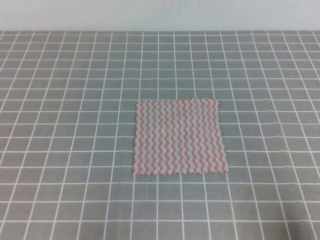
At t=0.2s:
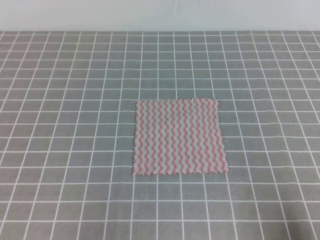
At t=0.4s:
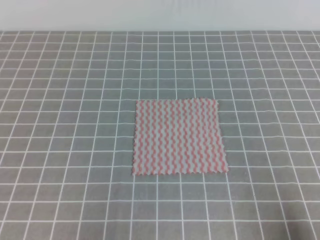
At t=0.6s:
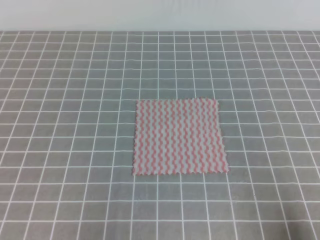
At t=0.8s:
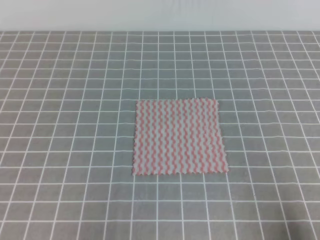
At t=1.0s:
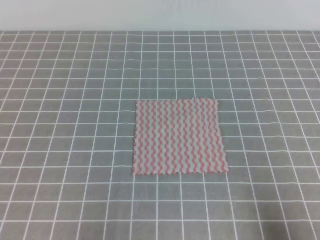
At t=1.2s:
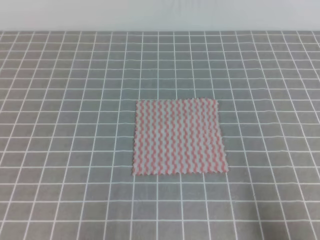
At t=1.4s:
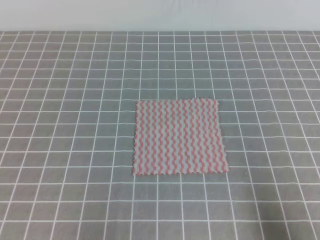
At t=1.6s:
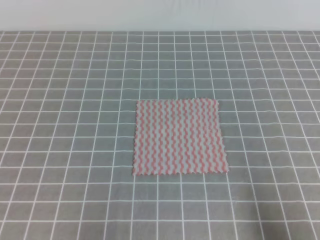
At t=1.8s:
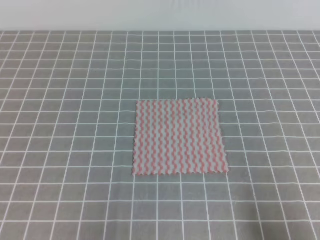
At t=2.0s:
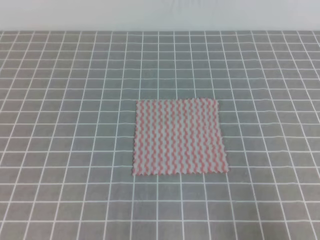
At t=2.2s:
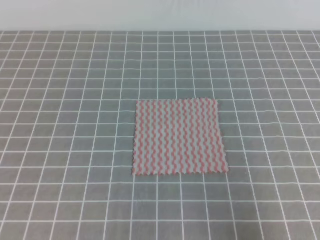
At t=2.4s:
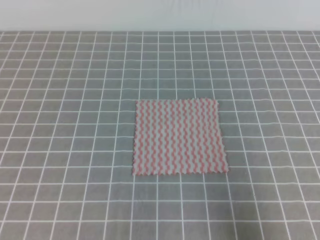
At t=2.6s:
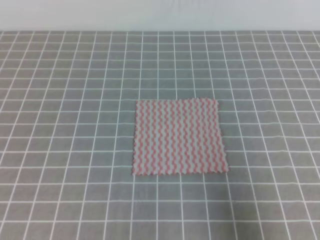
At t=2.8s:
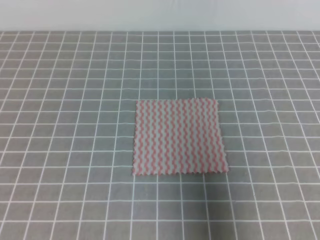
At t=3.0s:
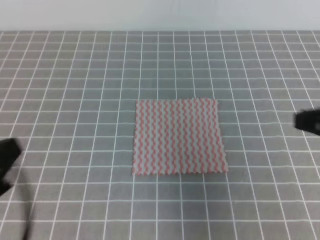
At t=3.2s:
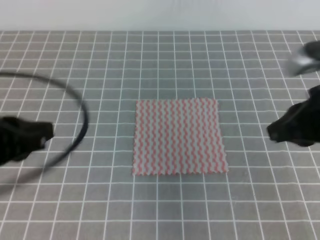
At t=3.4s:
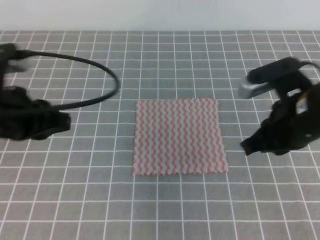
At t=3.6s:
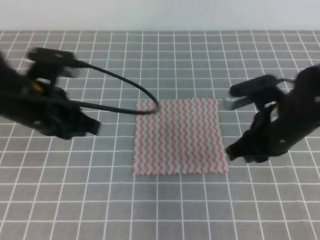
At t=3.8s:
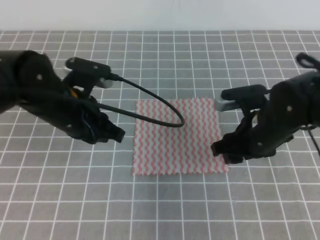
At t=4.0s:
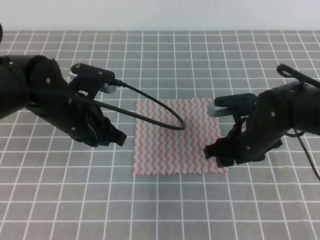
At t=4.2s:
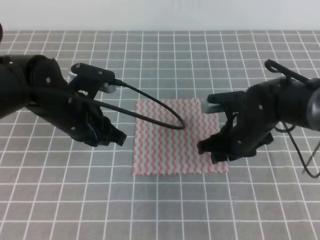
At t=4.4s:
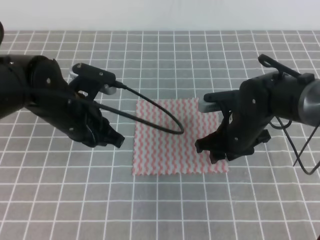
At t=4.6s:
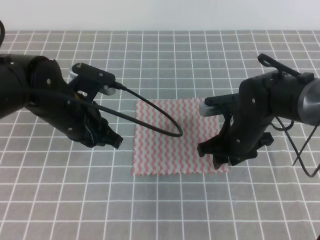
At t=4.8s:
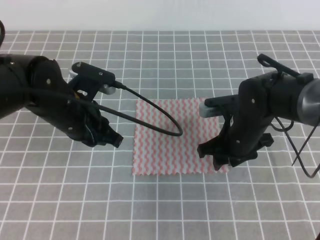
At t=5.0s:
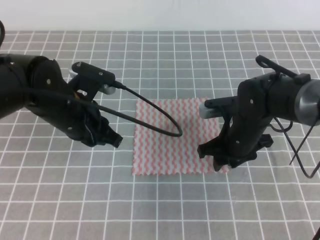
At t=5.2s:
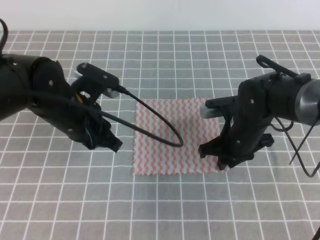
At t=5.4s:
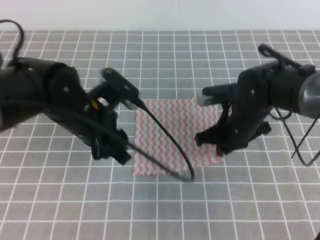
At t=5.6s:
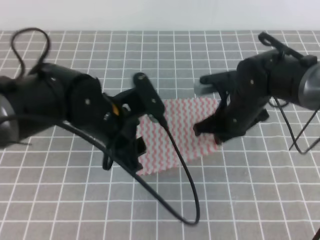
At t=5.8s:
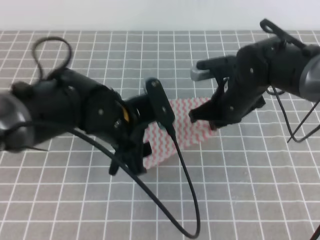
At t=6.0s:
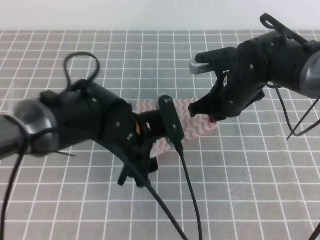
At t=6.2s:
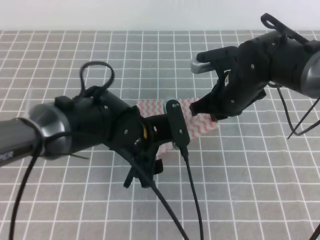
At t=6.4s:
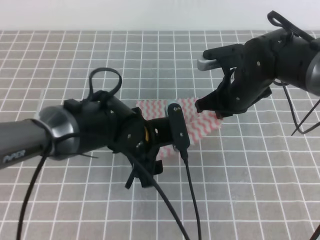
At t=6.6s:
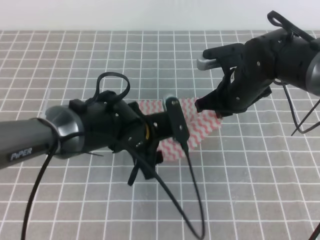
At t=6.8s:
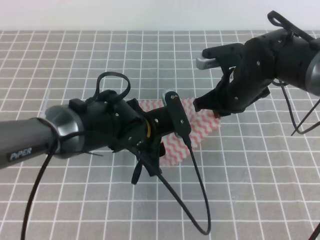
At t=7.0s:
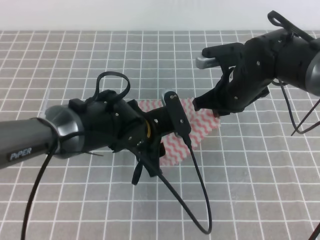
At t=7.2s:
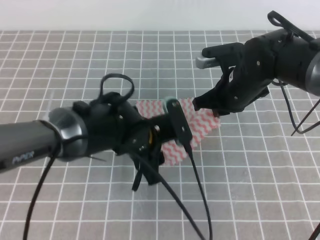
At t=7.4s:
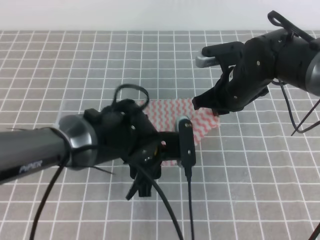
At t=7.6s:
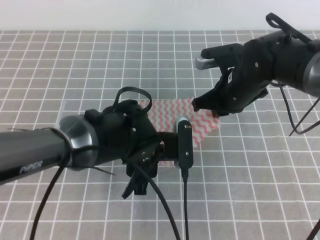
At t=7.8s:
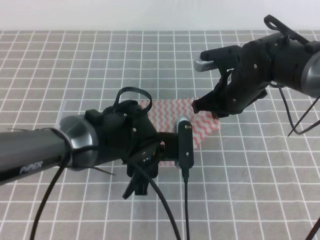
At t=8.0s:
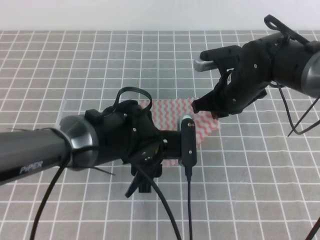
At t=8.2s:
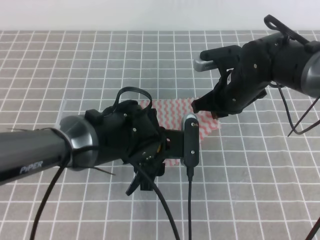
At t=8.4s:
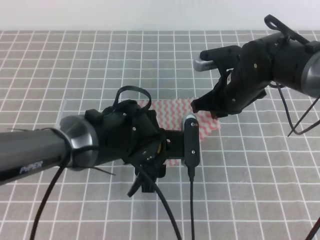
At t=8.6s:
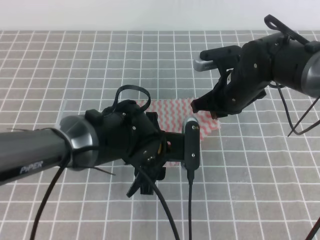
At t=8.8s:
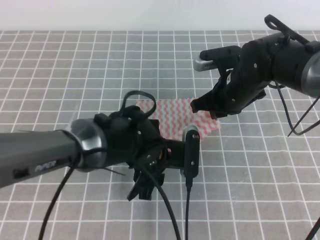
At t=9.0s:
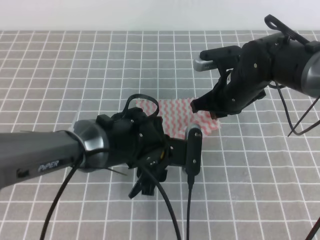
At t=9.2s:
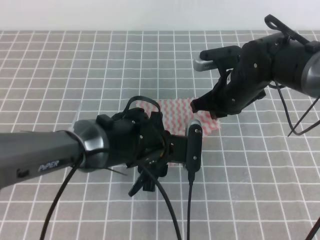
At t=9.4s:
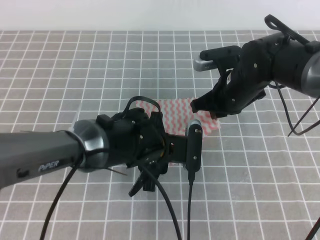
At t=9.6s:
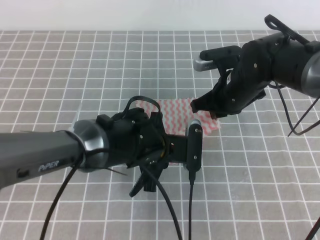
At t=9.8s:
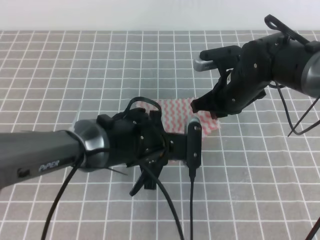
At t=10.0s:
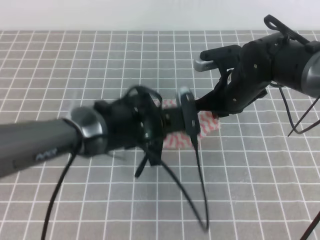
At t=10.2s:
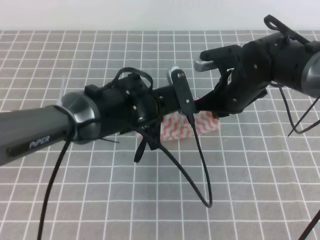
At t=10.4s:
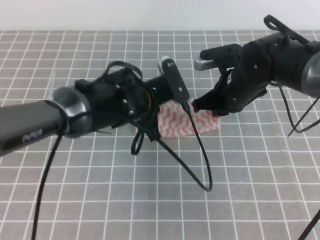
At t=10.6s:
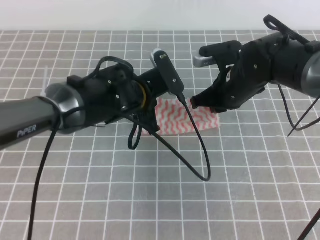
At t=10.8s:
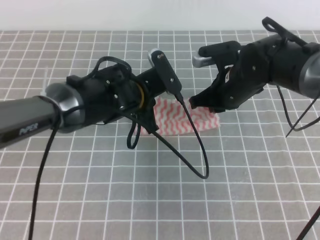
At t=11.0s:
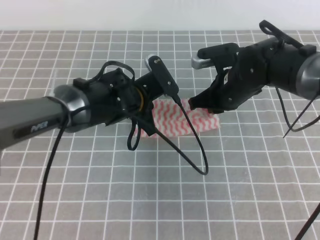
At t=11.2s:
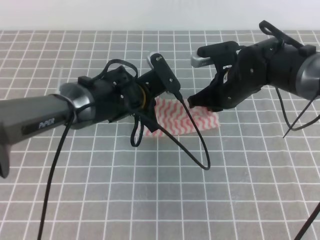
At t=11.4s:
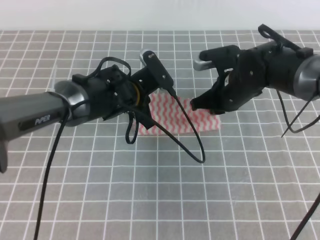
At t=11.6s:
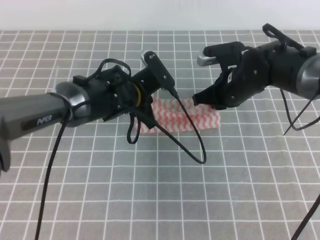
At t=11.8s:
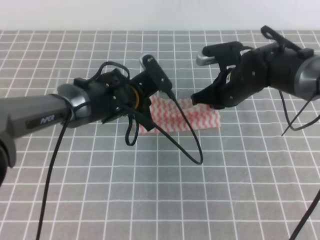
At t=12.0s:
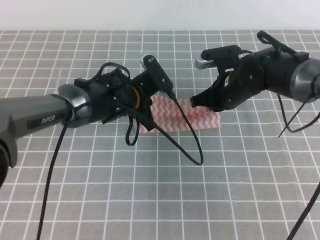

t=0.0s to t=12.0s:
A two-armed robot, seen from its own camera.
t=1.6s to t=3.0s: The left gripper is displaced upward by approximately 15 cm; the right gripper moves upward and forward, roughly 20 cm.
t=3.0s to t=4.4s: The right gripper travels downward, forward and to the left by some 25 cm, and opens; the left gripper is displaced forward and to the right by about 25 cm.
t=4.4s to t=6.0s: The left gripper moves to the right, some 10 cm, and opens up; the right gripper shifts roughly 5 cm upward, and closes up.
t=7.6s to t=9.0s: The grippers make only small movements.
t=9.0s to t=10.4s: The left gripper goes about 5 cm forward, and closes.
t=10.4s to t=12.0s: The left gripper moves forward, roughly 5 cm.

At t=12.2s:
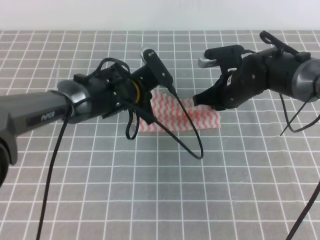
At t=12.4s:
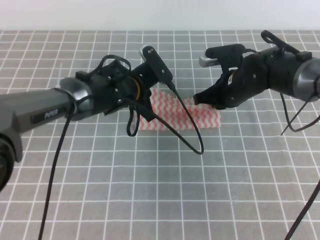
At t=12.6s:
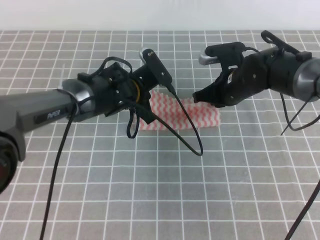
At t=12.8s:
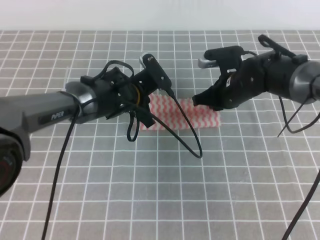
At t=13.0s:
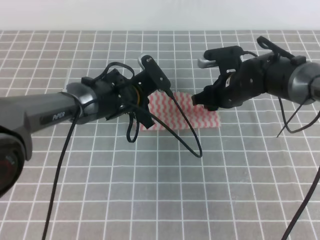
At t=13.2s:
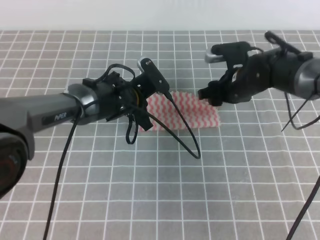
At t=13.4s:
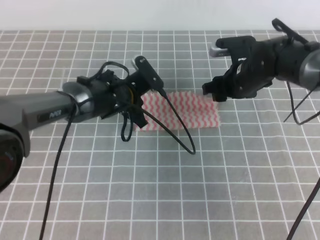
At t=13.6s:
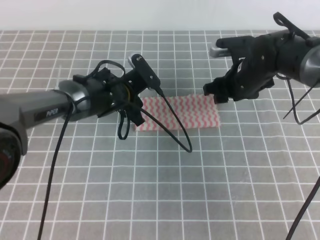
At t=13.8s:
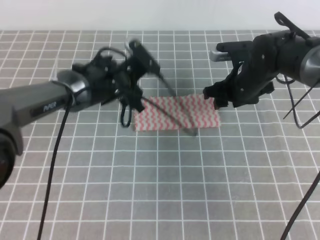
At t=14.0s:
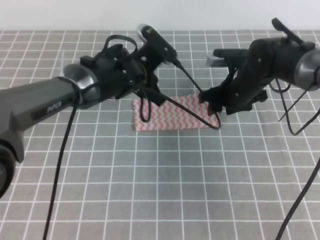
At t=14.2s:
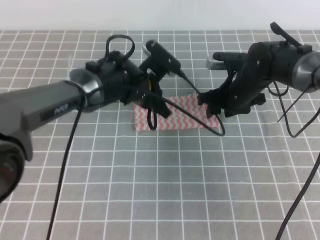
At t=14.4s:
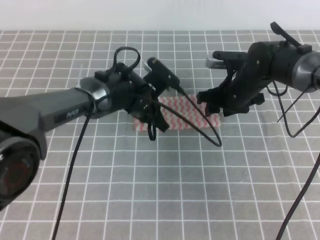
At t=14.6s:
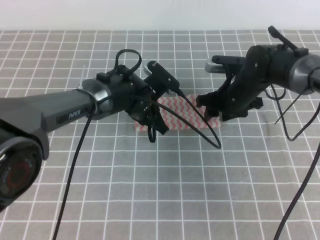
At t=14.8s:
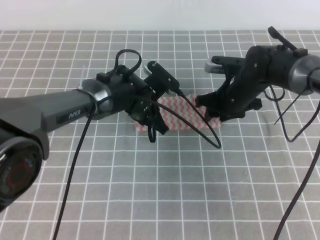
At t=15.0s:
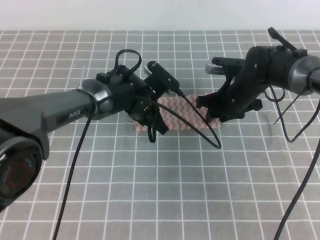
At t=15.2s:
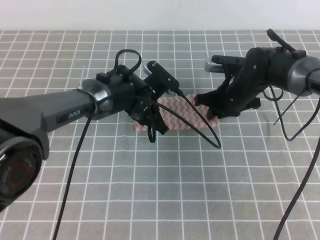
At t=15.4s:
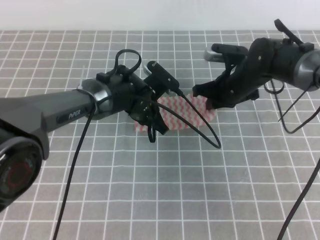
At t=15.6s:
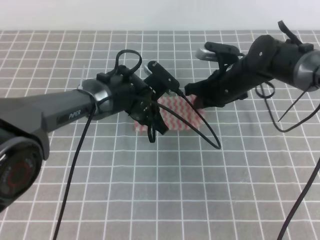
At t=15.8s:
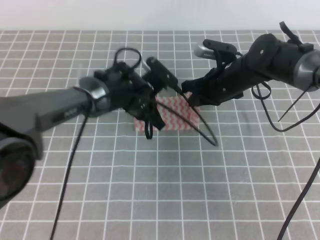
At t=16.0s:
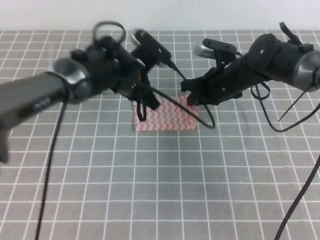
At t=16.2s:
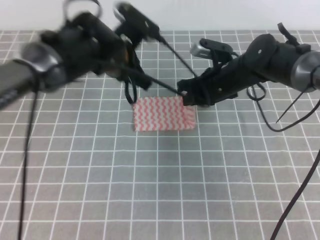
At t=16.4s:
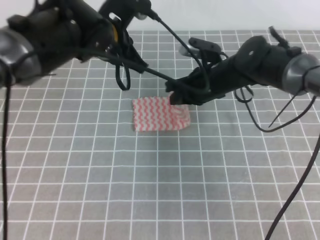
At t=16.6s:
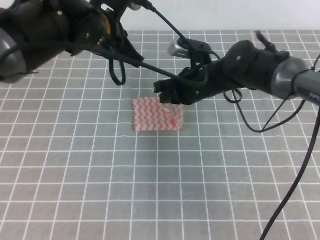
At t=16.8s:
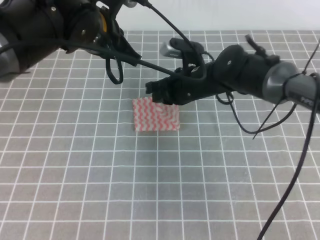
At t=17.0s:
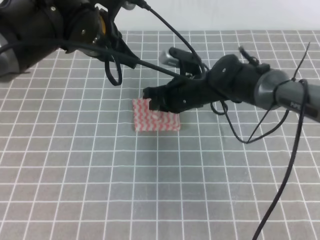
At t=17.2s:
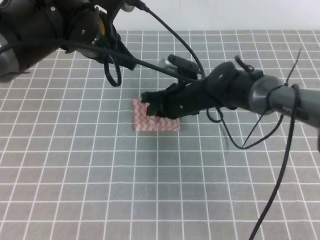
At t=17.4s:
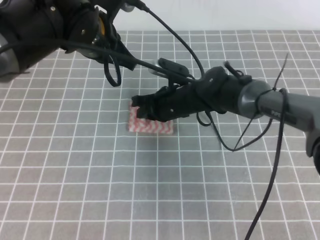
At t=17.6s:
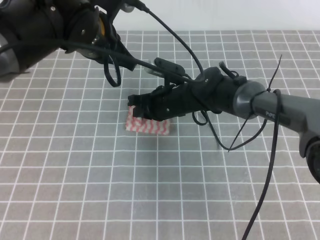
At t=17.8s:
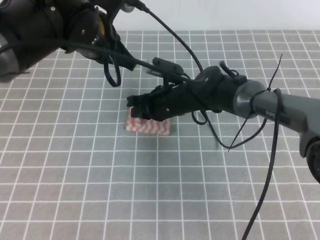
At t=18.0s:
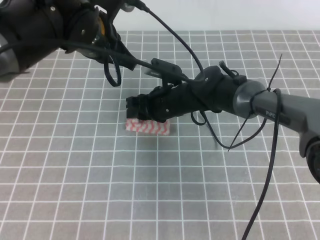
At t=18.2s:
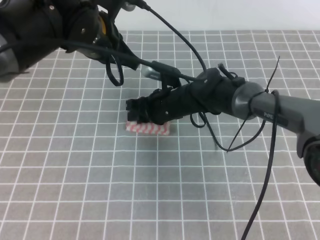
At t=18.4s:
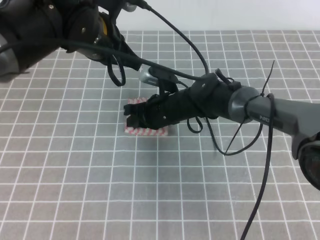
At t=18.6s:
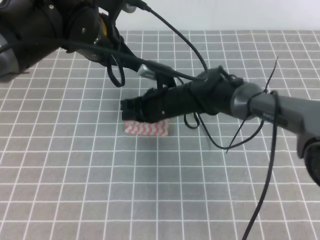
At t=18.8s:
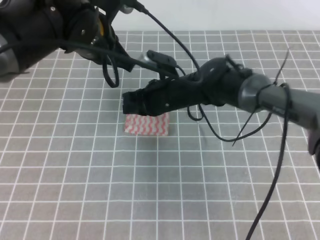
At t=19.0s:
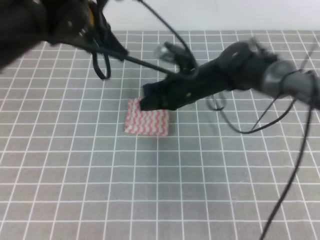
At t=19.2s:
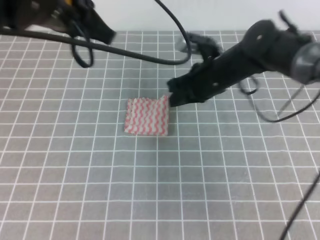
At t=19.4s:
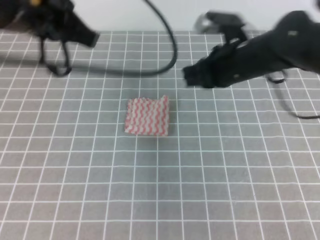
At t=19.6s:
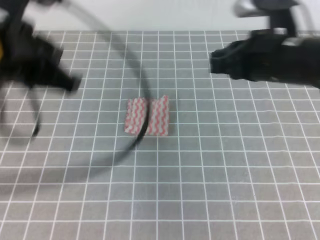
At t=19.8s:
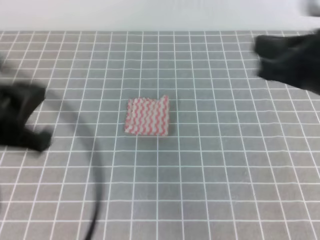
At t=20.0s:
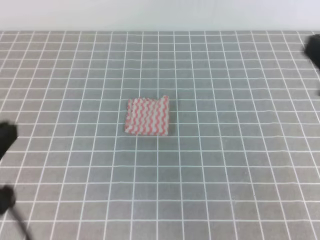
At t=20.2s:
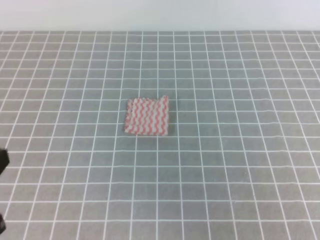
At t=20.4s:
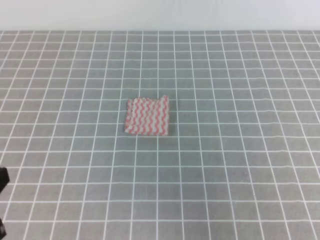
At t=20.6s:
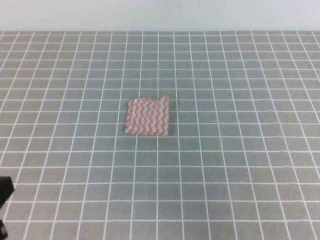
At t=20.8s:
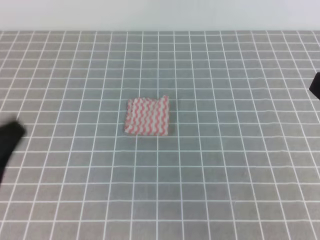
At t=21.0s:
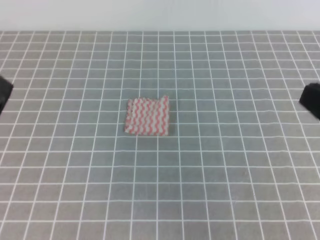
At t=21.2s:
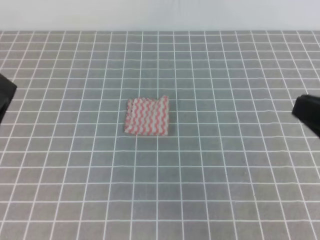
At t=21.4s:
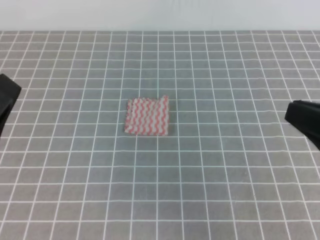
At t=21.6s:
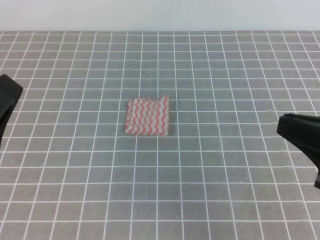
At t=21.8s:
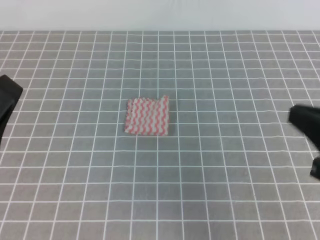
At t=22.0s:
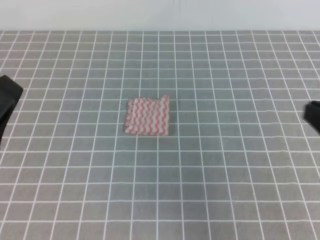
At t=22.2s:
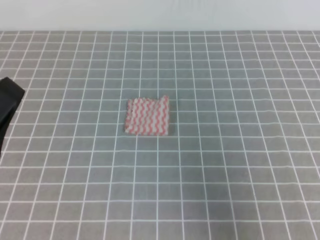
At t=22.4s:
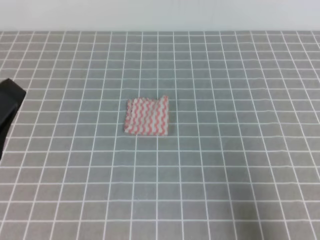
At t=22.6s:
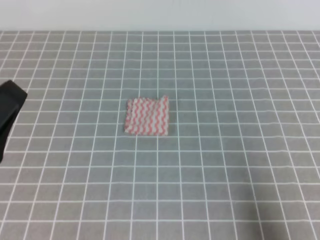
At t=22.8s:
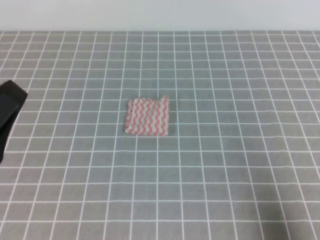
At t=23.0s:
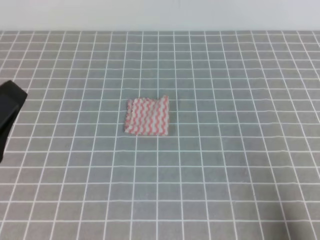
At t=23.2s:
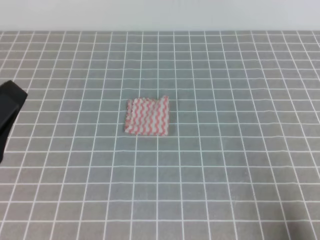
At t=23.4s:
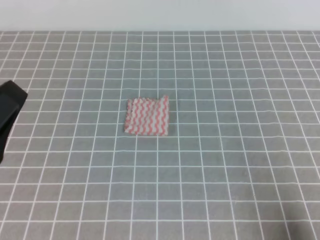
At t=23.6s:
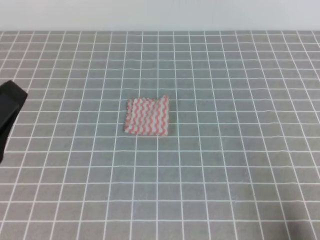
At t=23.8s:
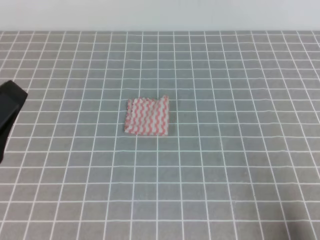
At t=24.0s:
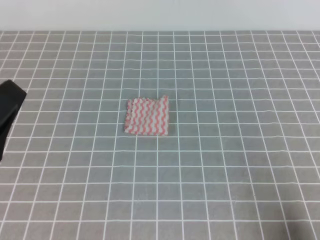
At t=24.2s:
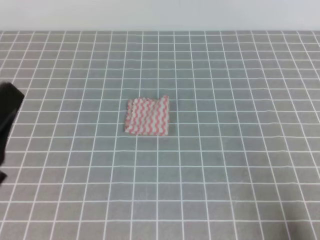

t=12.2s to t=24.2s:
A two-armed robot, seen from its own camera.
t=12.2s to t=13.8s: The left gripper opens up; the right gripper opens its fingers.
t=13.8s to t=15.2s: The right gripper closes its fingers; the left gripper closes.
t=15.2s to t=16.6s: The left gripper goes some 20 cm upward; the right gripper moves to the left, approximately 5 cm.
t=16.6s to t=18.2s: The right gripper travels to the left and downward by roughly 10 cm, and opens.
t=18.2s to t=19.8s: The right gripper goes approximately 30 cm upward, to the right and backward, and closes its fingers, while the left gripper goes approximately 20 cm backward and to the left.
t=19.8s to t=21.2s: The right gripper is displaced backward by about 10 cm, while the left gripper is displaced backward by approximately 5 cm.
t=21.2s to t=22.6s: The right gripper is displaced downward, to the right and backward by about 15 cm.
t=22.6s to t=24.2s: The right gripper heads downward, covering some 5 cm.
